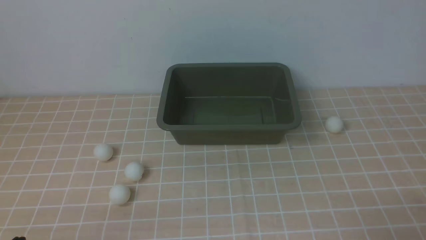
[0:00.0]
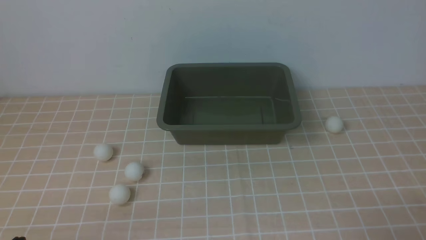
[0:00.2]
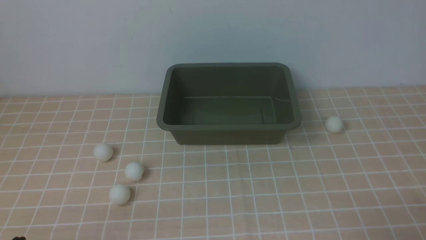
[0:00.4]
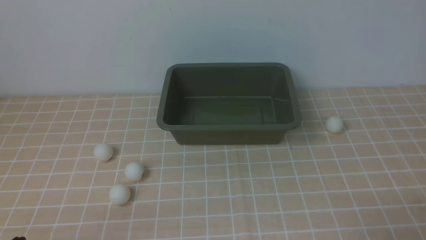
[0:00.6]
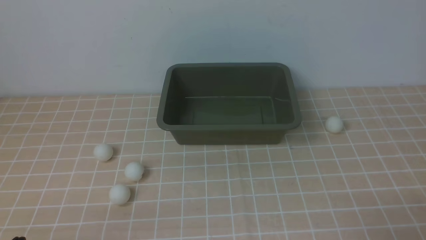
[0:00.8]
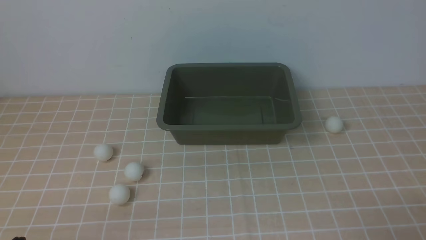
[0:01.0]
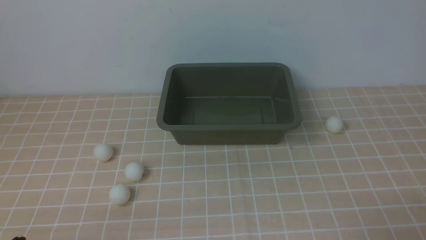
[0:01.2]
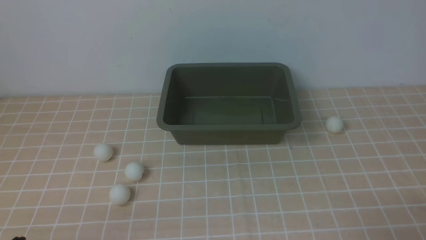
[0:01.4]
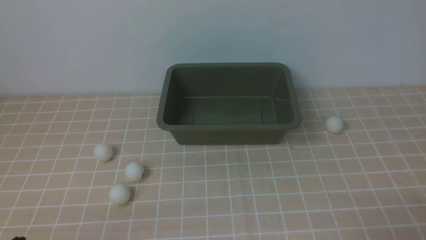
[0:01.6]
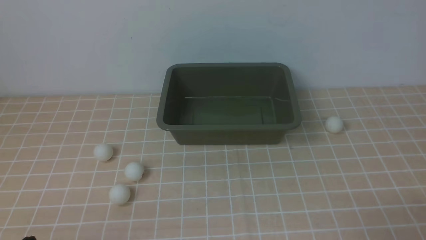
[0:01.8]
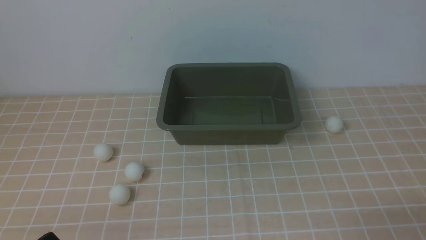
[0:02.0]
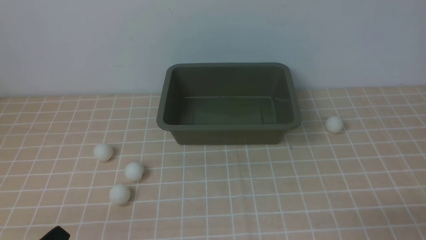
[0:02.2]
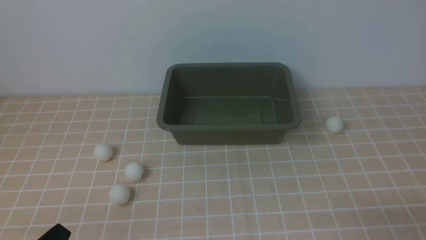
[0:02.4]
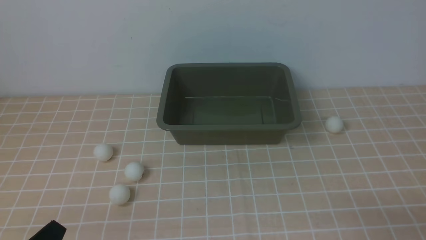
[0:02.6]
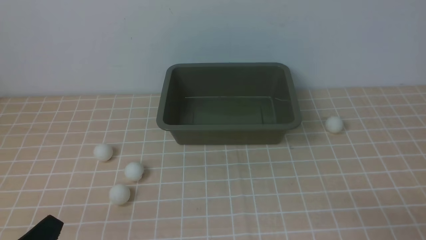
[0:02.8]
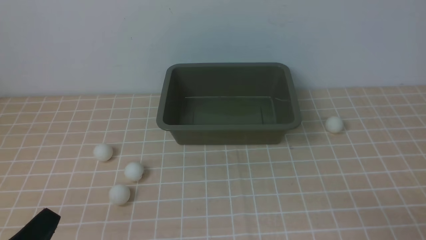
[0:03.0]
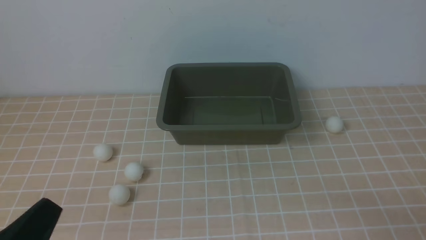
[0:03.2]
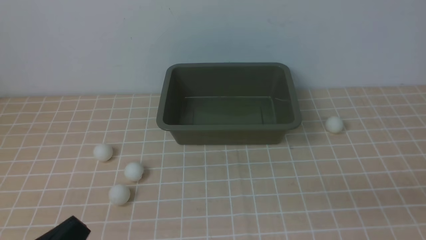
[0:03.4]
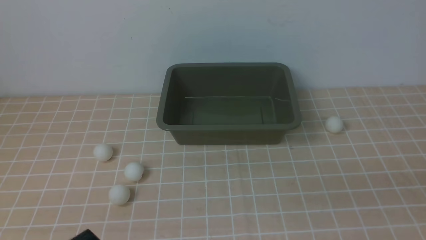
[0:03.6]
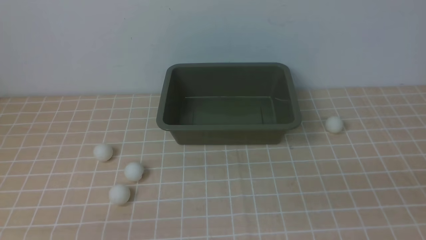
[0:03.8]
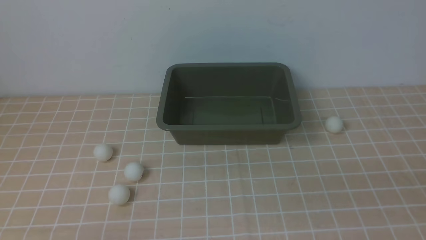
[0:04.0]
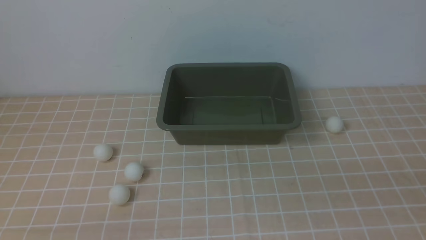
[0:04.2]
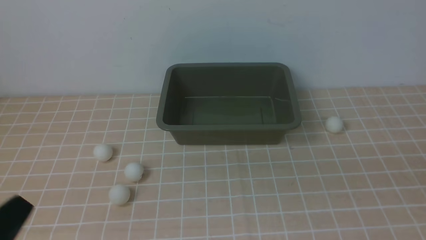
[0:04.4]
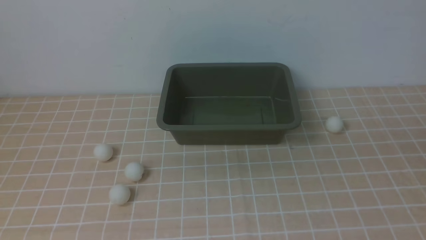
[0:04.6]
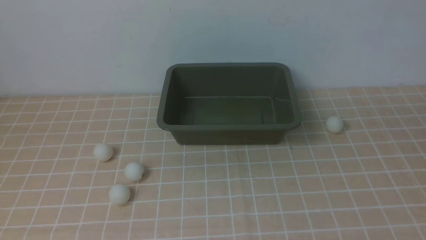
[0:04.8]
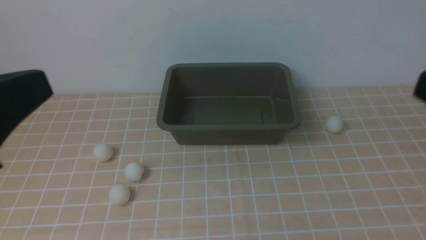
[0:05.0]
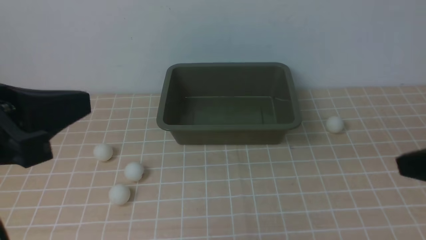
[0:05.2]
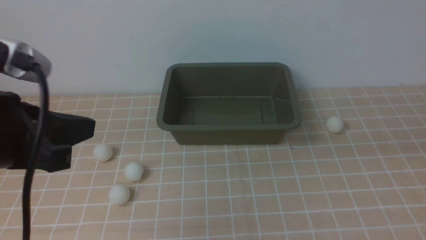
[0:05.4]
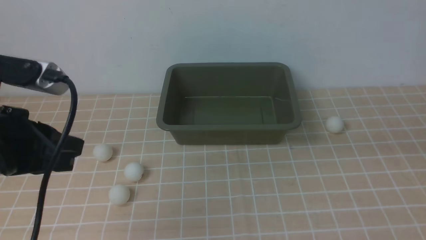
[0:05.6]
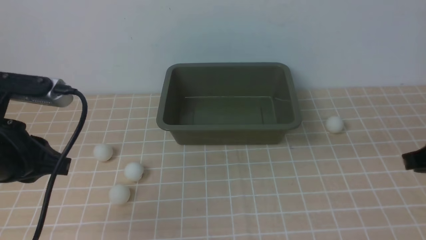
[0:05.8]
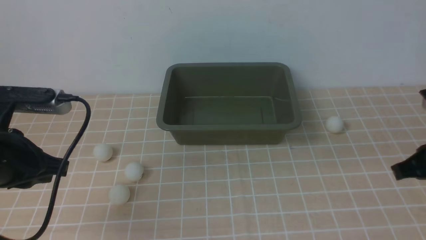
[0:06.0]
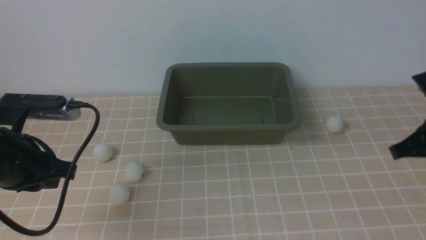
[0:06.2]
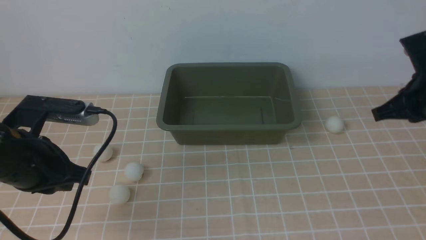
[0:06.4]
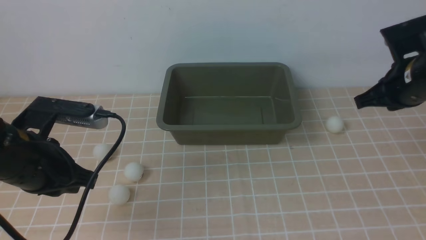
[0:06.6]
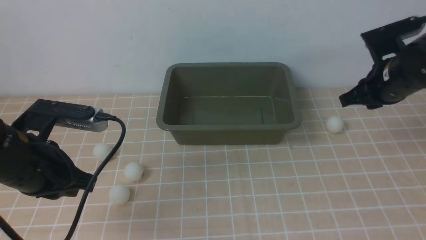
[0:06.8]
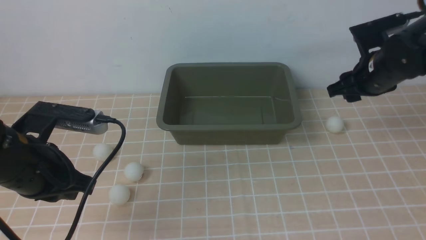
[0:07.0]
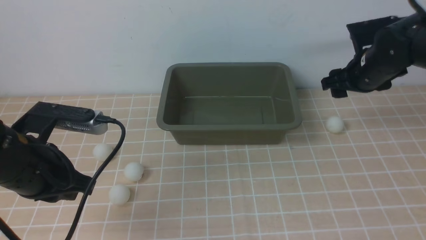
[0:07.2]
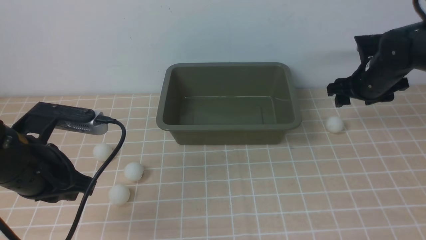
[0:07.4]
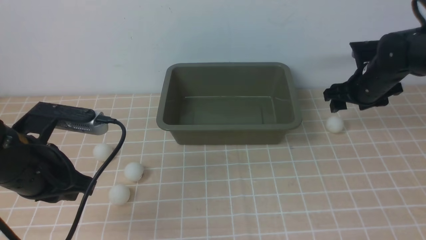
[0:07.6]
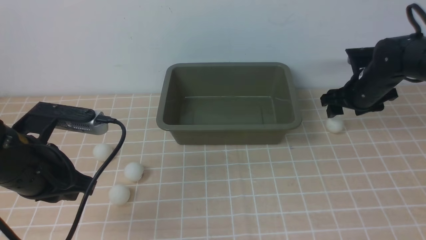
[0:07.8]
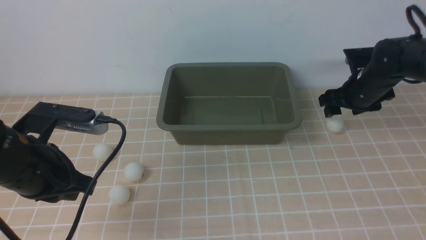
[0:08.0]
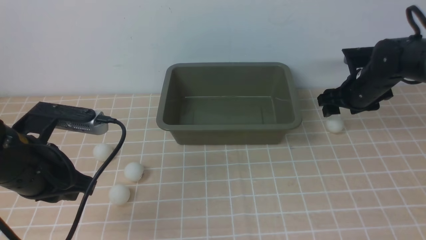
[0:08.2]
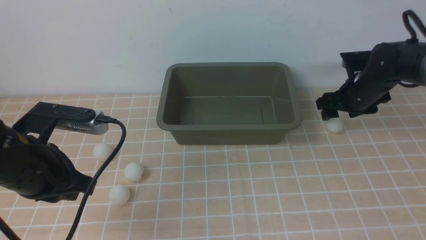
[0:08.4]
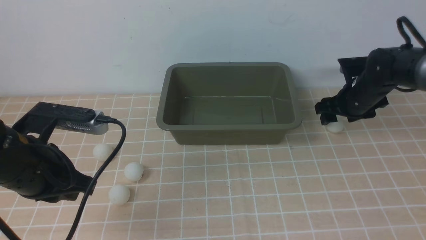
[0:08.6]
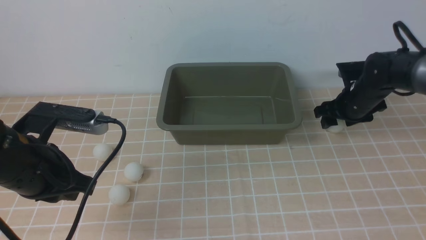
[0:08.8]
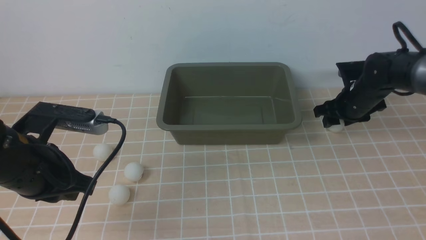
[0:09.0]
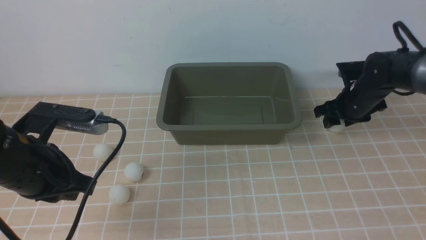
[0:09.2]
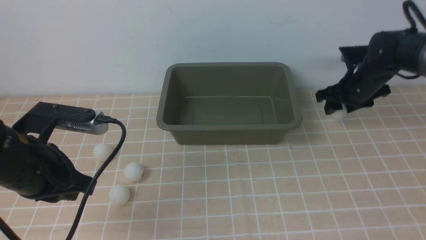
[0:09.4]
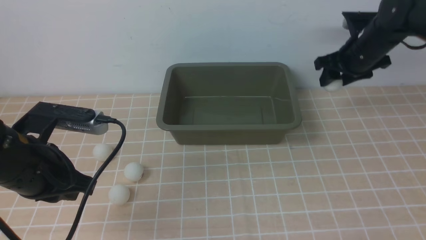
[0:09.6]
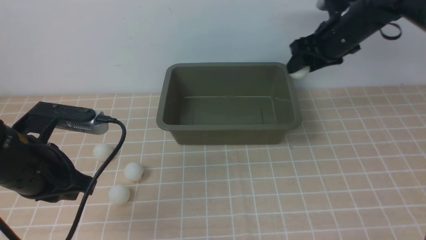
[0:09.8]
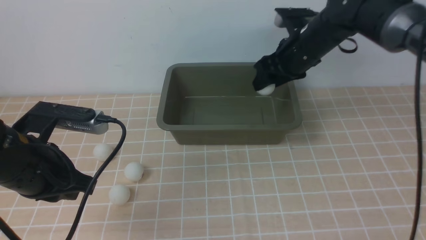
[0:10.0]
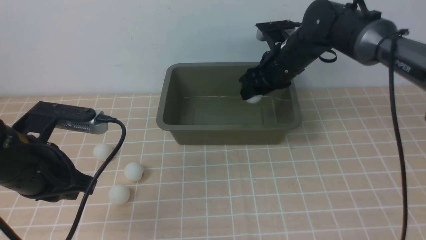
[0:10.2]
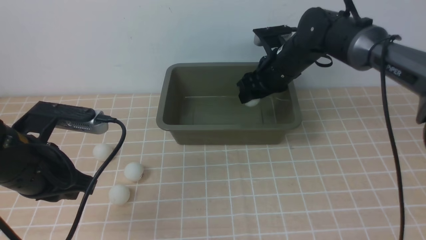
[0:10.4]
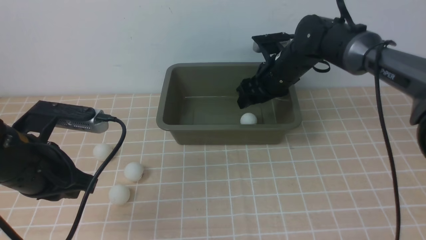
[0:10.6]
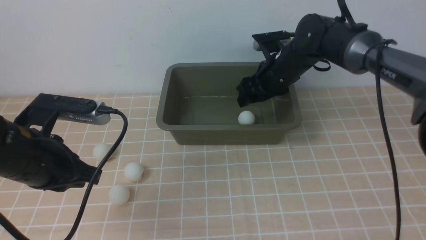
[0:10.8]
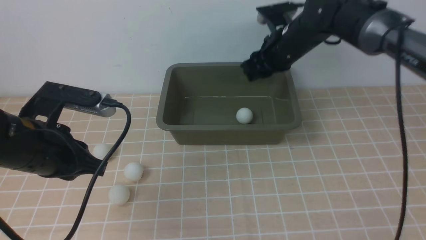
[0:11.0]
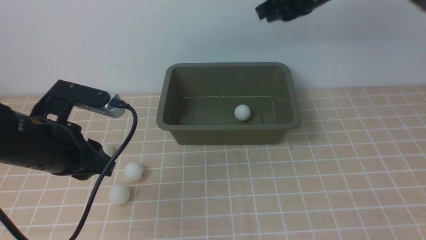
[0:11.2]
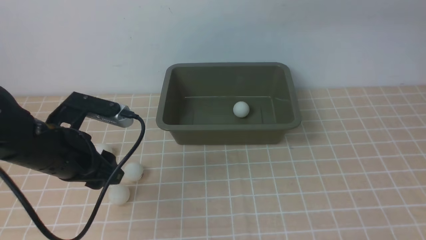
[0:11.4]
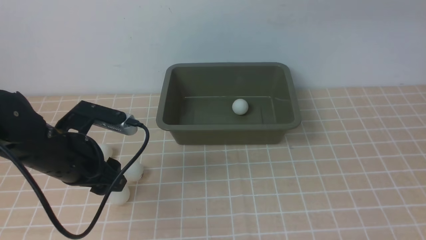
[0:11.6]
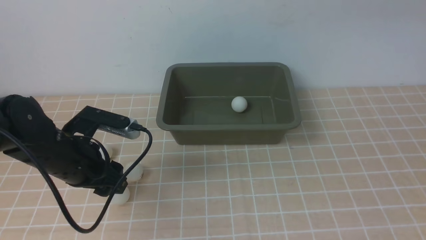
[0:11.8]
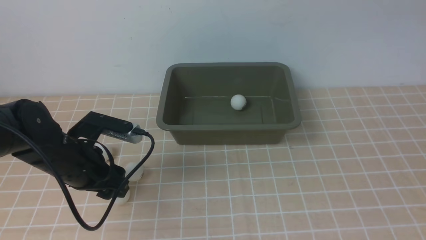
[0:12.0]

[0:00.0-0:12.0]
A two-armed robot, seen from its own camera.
Step, 0:00.0 to 0:09.6: use the right arm to clamp the table tennis ball closest to it.
Step, 0:09.8 to 0:11.0: use the right arm to put the table tennis ball into the box.
0:04.4 to 0:06.0: Both grippers move forward, some 20 cm.
0:06.0 to 0:07.6: The right gripper heads forward, covering some 20 cm, and opens up.
0:07.6 to 0:09.0: The right gripper shifts roughly 5 cm downward.
0:09.0 to 0:10.4: The right gripper heads to the left and upward, covering approximately 15 cm.
0:10.4 to 0:12.0: The right gripper shifts approximately 35 cm upward and backward, and closes its fingers. Meanwhile the left gripper shifts some 10 cm downward and forward, and opens up.

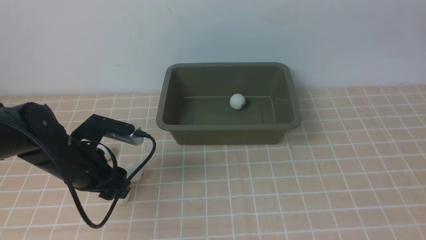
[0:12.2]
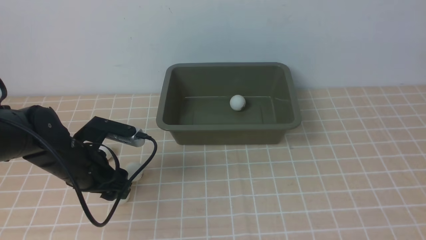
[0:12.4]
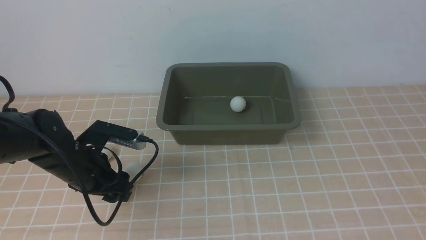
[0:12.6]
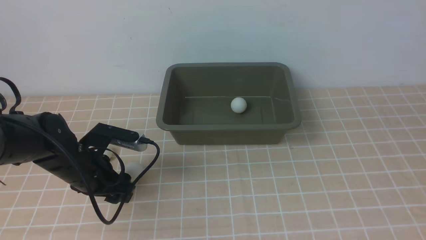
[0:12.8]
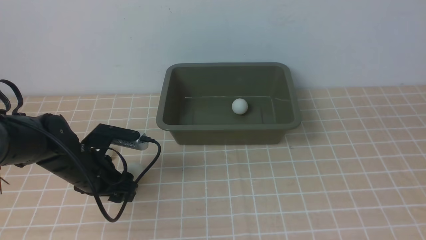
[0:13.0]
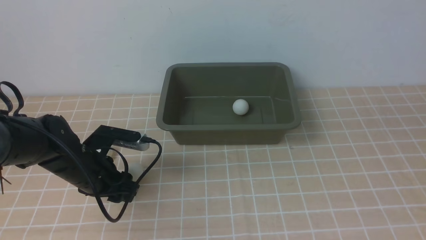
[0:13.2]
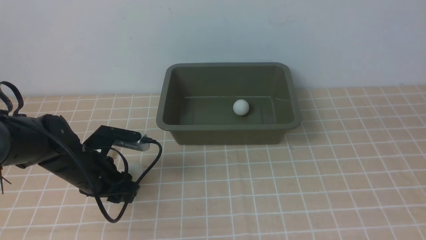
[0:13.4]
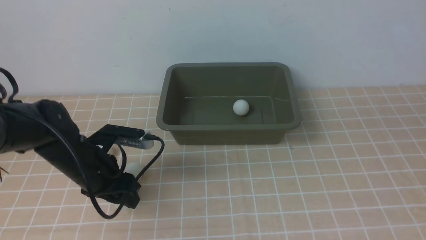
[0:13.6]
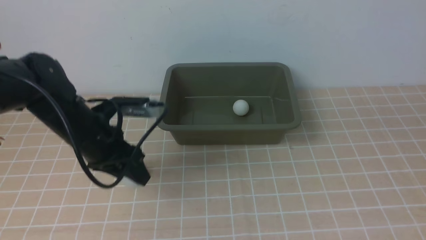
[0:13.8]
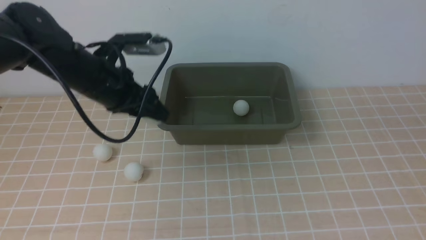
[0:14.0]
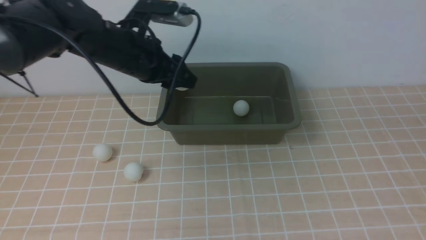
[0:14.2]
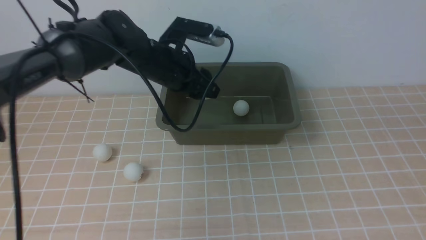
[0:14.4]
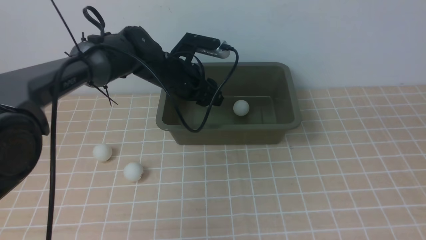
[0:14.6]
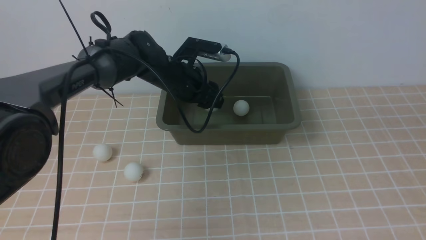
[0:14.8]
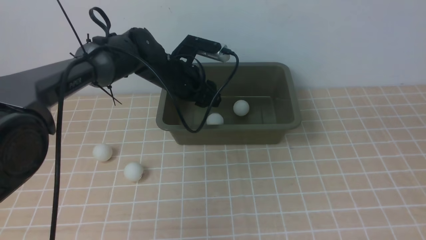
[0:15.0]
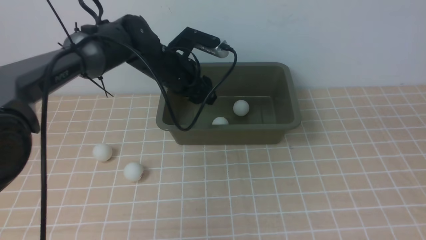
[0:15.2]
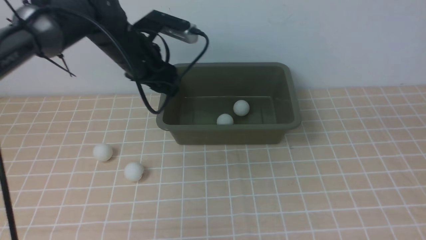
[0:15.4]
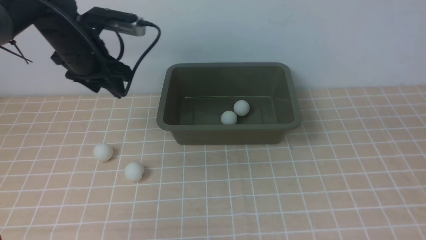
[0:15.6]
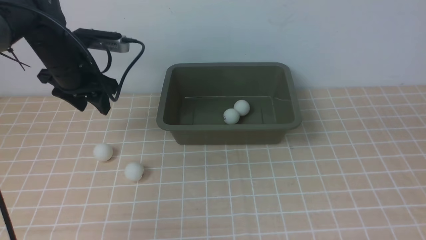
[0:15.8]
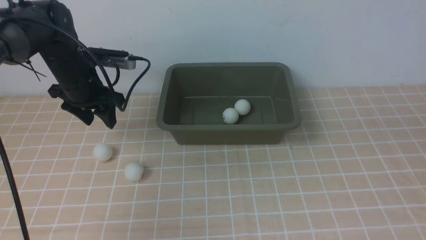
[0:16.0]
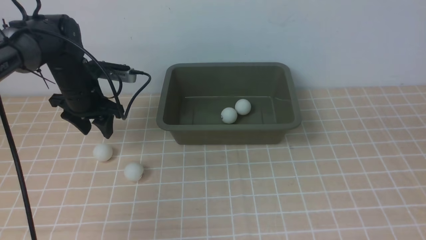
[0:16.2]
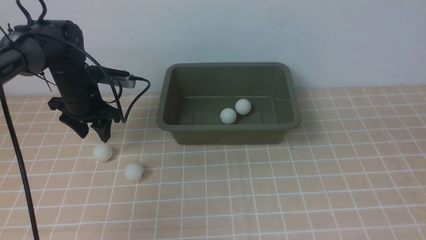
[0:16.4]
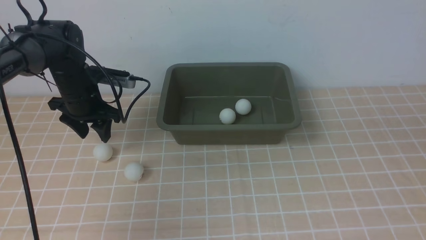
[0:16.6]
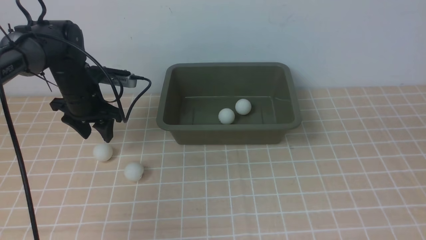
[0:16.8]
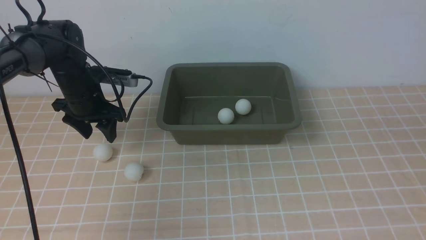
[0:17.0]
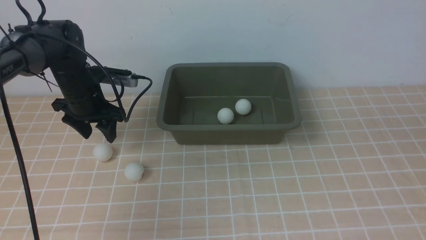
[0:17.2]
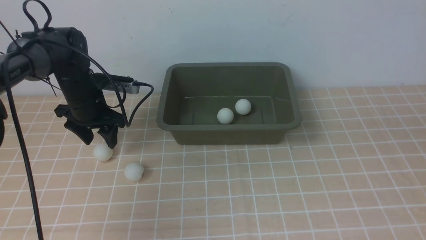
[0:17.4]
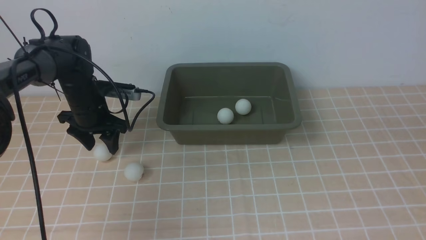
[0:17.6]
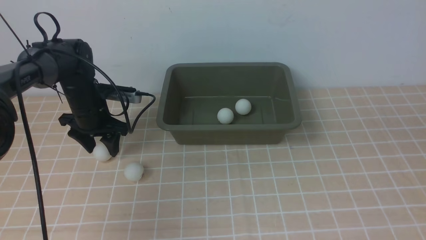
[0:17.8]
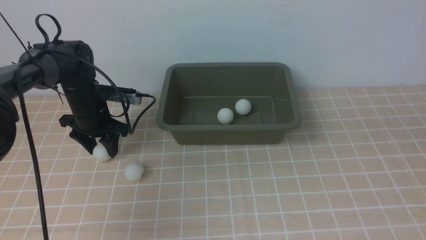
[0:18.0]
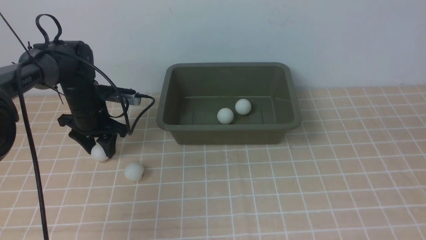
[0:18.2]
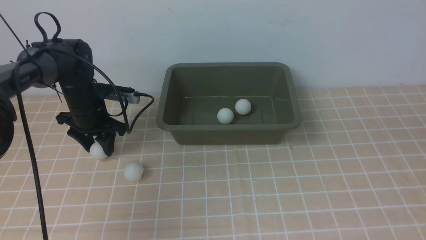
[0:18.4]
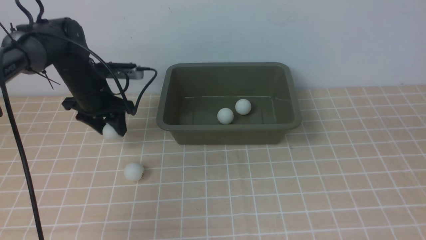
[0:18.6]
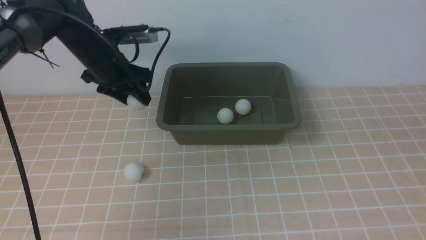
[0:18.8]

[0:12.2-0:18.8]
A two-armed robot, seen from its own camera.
Step, 0:12.2 to 0:13.8: use the left arm to clamp the table tennis ball closest to it.
Step, 0:14.0 to 0:15.4: use the left arm to put the table tennis ball into the box.
Step, 0:15.6 to 0:18.6: use the left arm to clamp the table tennis ball closest to it.
0:12.2 to 0:13.8: The right gripper shifts roughly 15 cm backward and downward.
0:13.8 to 0:15.4: The left gripper moves forward, upward and to the right, about 15 cm.
0:15.4 to 0:17.2: The left gripper heads to the left and downward, covering roughly 15 cm.
0:17.2 to 0:18.8: The left gripper shifts by roughly 5 cm.
